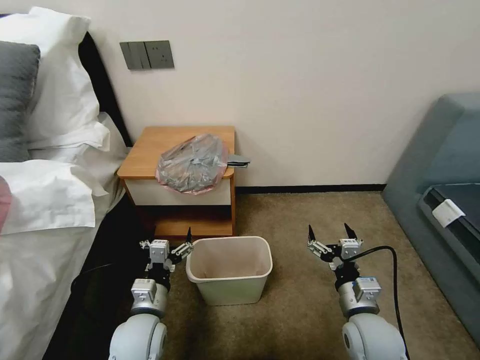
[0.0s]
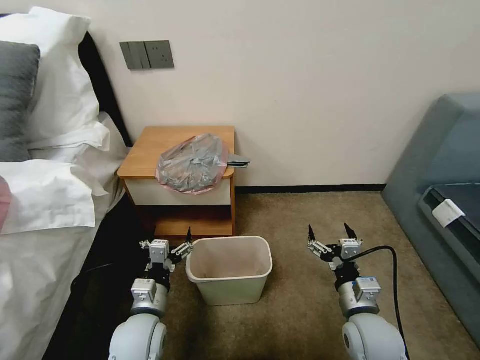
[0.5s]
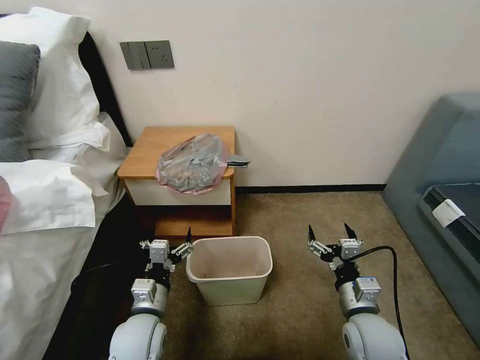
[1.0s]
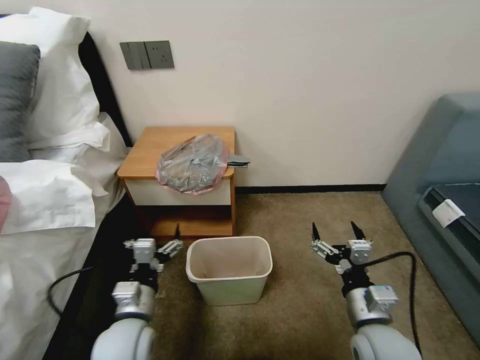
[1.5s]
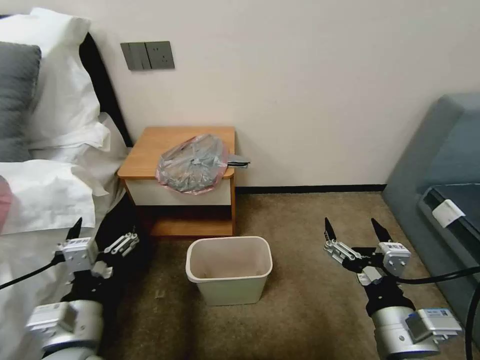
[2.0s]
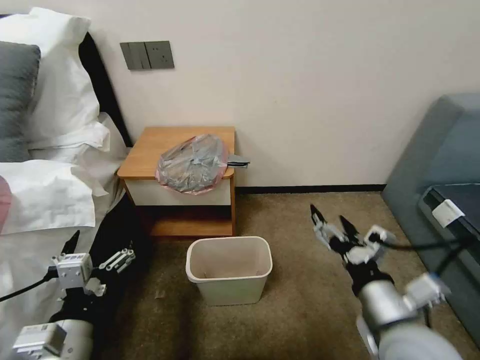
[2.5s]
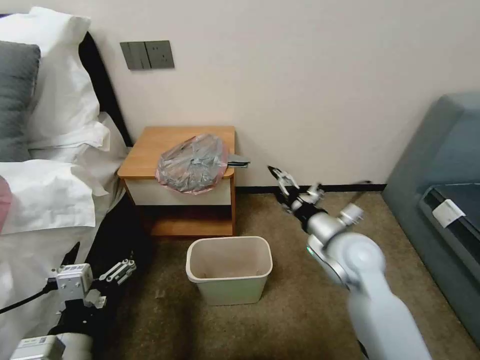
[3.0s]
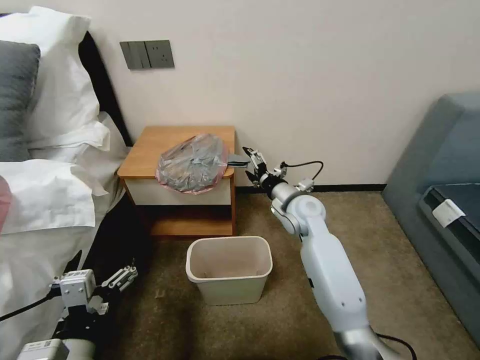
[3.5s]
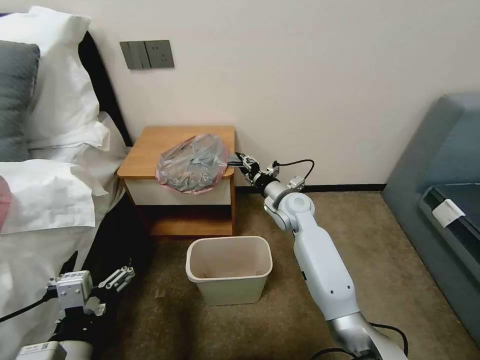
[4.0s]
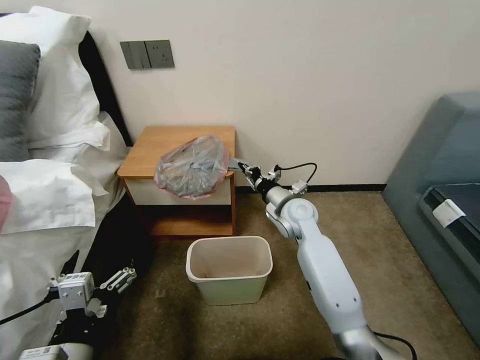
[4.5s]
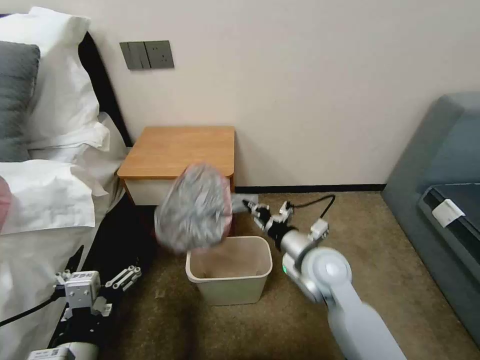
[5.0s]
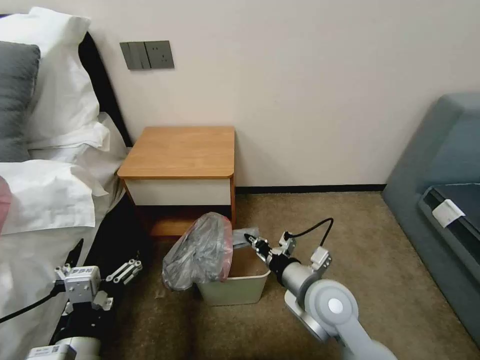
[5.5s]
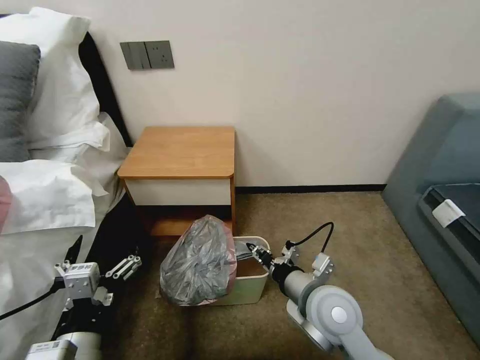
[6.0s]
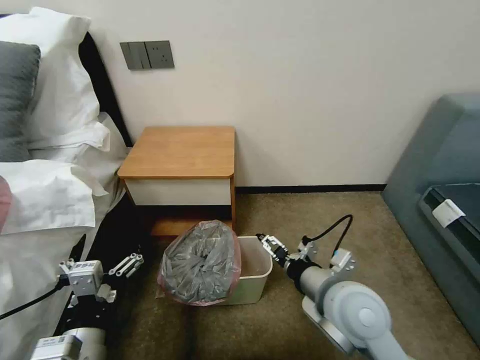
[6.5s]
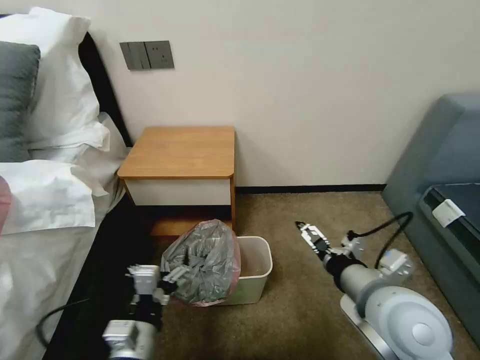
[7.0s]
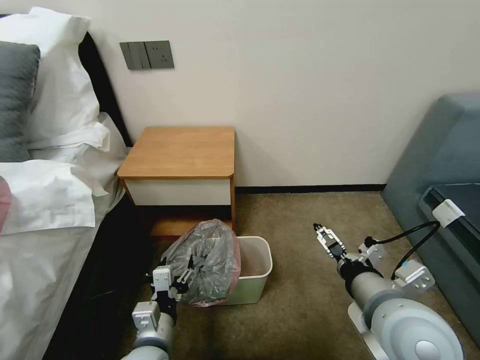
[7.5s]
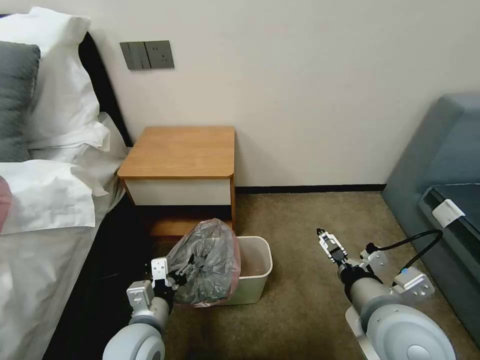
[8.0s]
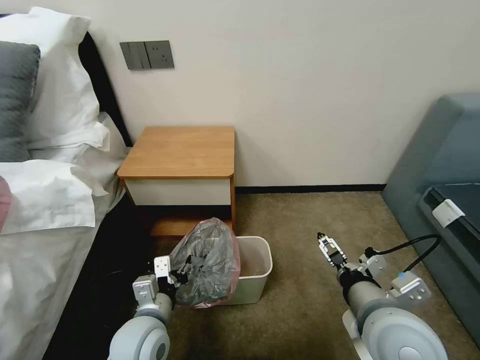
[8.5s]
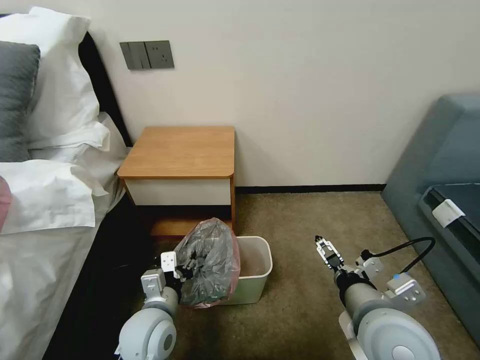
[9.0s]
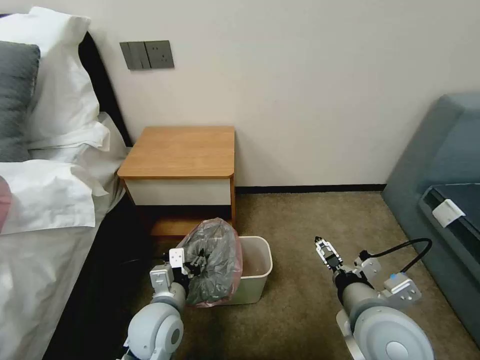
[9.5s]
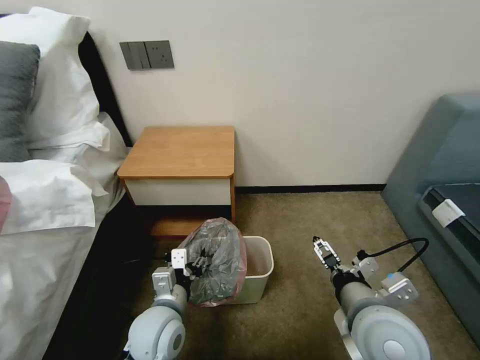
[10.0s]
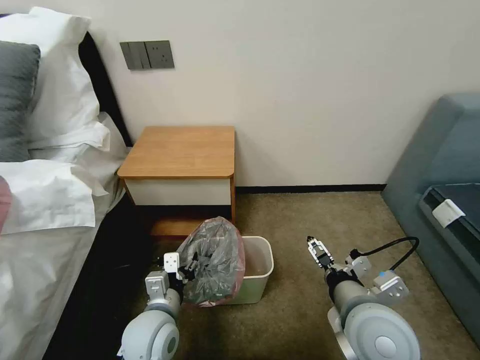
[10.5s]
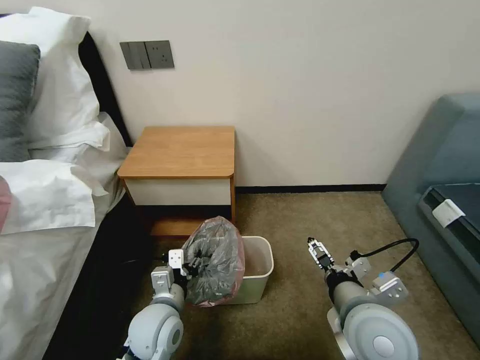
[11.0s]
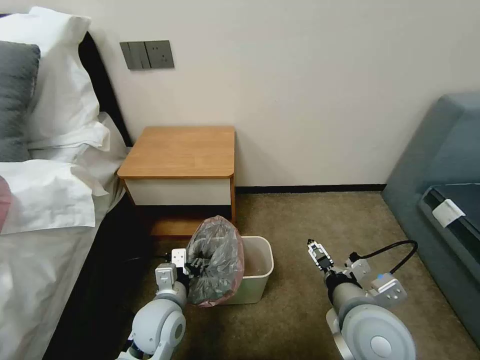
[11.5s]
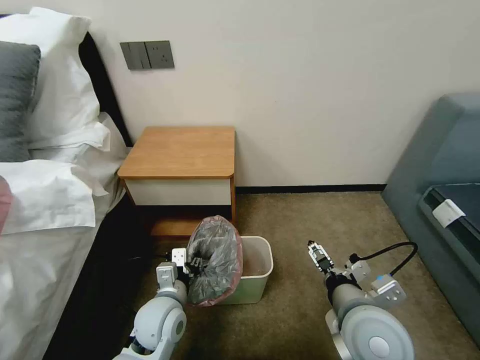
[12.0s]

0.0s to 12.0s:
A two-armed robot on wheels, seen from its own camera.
Task of the whole recording: Pick up the garbage bag from the table and place it over the trash can.
2.0s to 4.0s: The right gripper shifts roughly 35 cm forward, and closes its fingers. Meanwhile the left gripper travels backward by roughly 5 cm.
4.0s to 6.0s: The right gripper heads backward, covering some 25 cm.
6.0s to 8.0s: The left gripper travels forward and downward by roughly 10 cm; the right gripper moves upward, to the right and backward, roughly 10 cm, and opens.
8.0s to 10.0s: There are only small adjustments of the grippers.
10.0s to 12.0s: The grippers stay close to where they were, moving slightly.

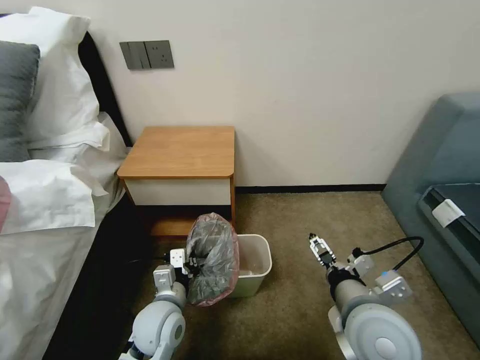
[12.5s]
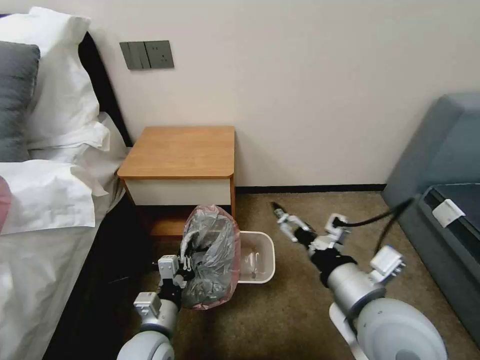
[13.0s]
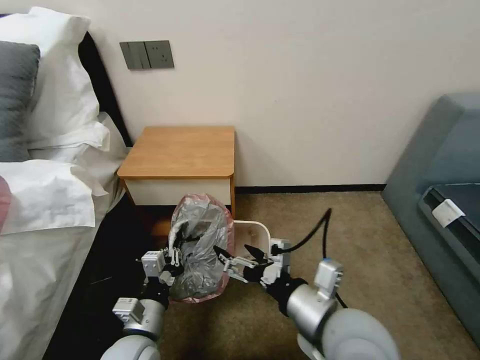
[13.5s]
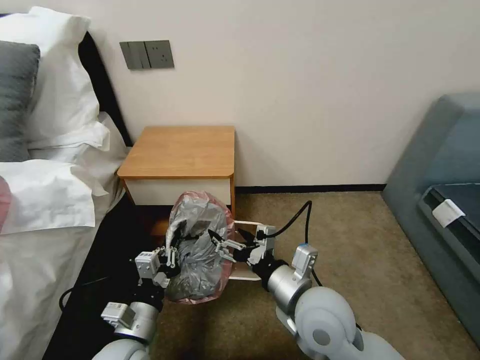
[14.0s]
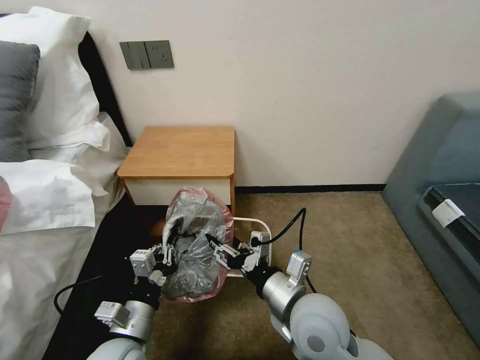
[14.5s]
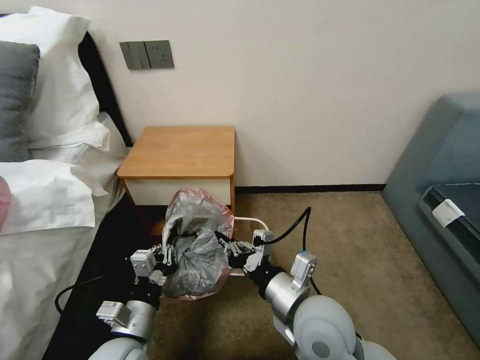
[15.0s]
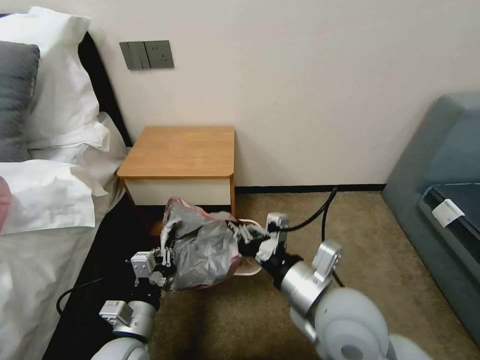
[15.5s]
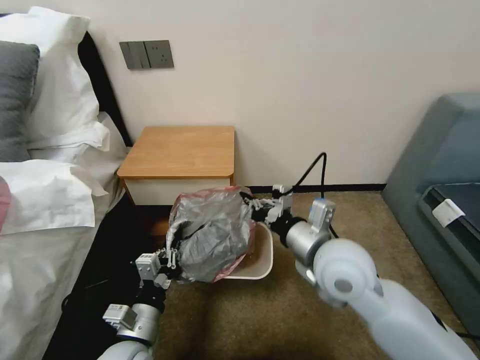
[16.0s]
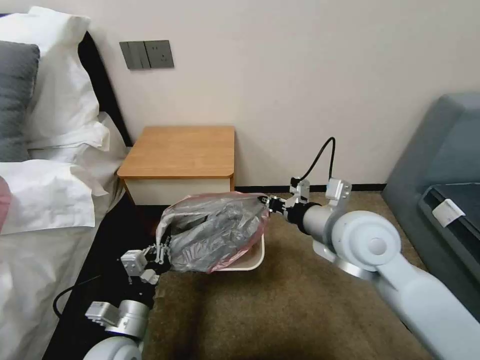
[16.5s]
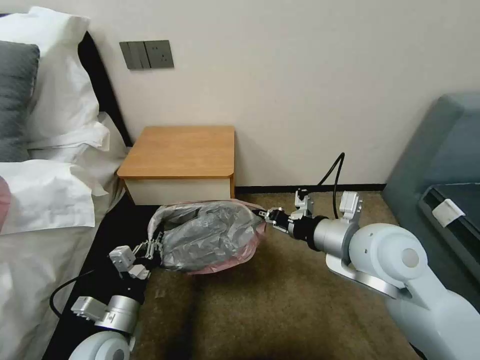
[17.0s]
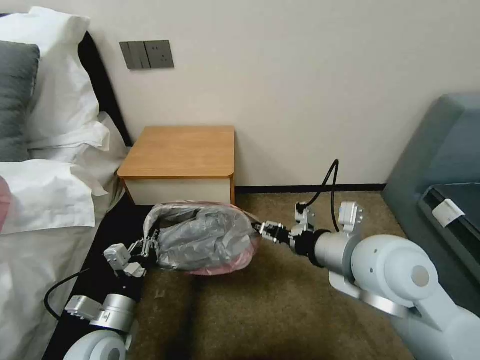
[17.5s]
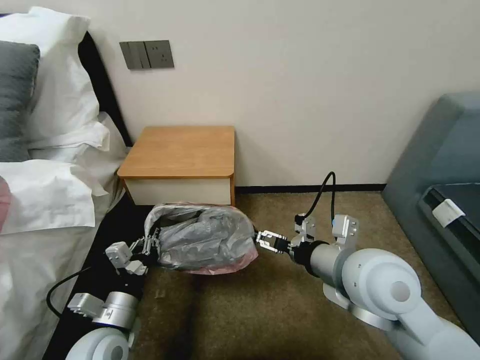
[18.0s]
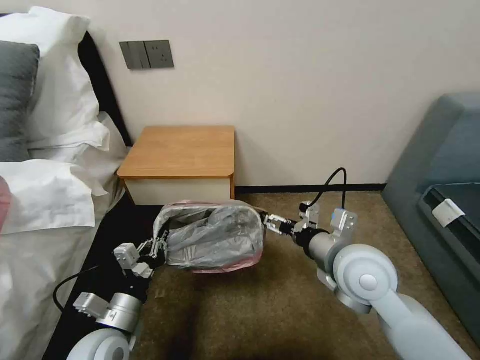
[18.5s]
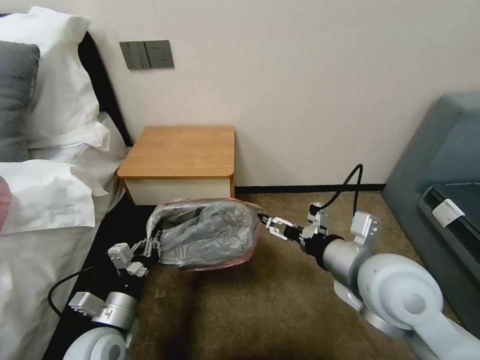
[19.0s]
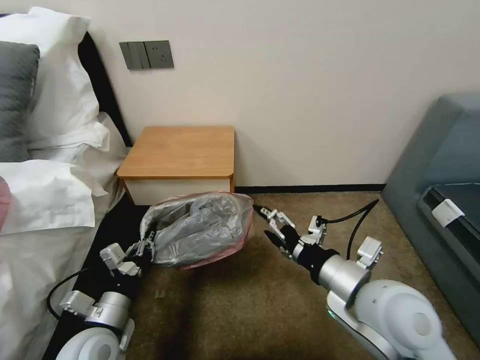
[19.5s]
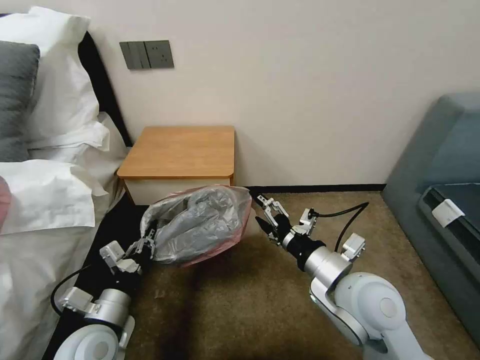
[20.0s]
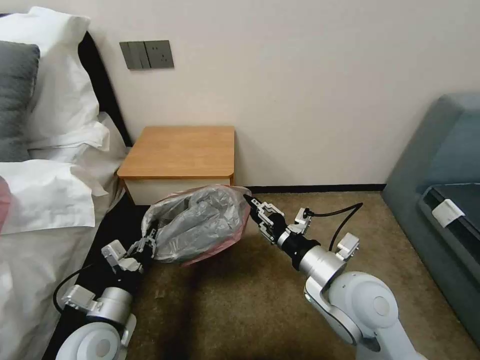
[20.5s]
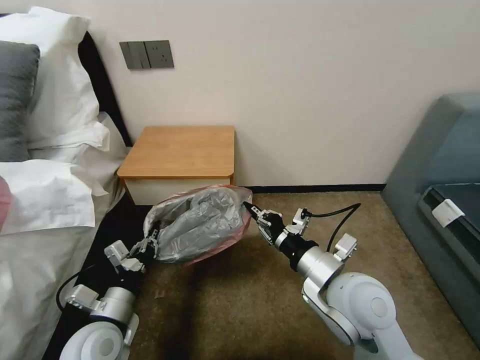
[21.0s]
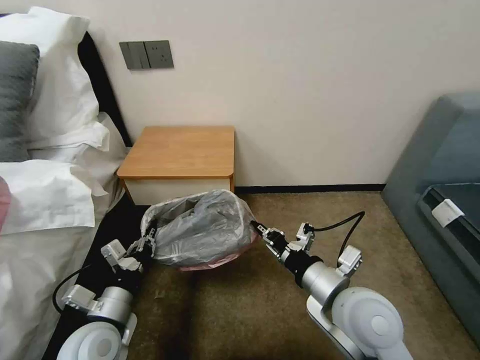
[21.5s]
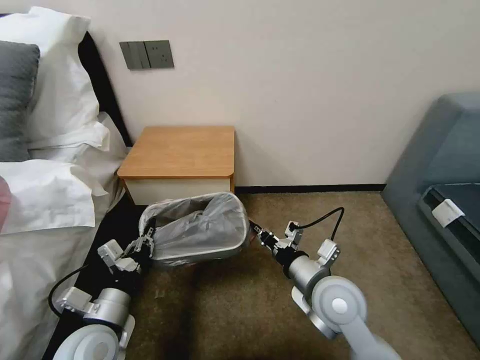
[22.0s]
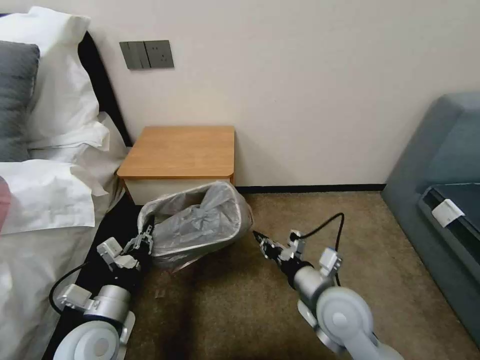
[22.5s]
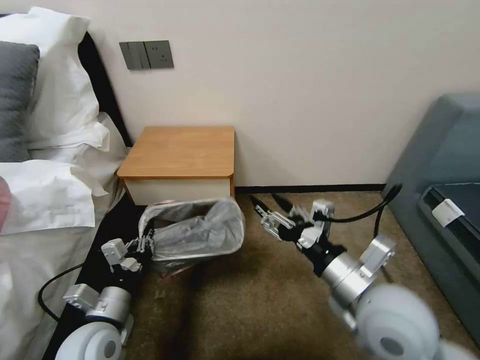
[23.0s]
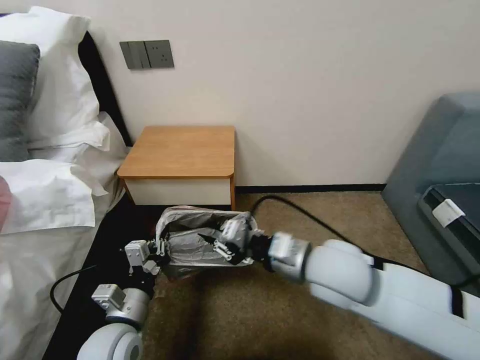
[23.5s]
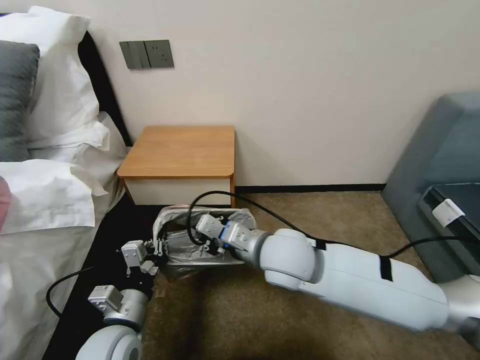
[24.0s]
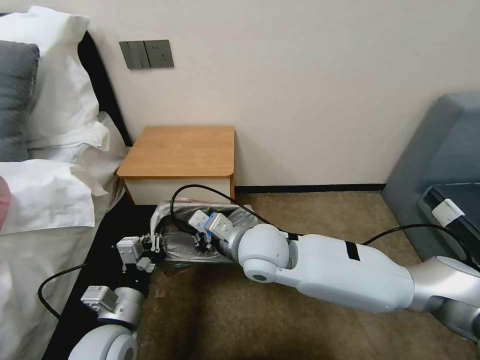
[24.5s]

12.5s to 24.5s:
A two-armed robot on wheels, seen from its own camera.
Task of the whole recording: Pick up the garbage bag from the table and place it over the trash can.
12.5s to 14.5s: The right gripper shifts roughly 10 cm to the left, and closes. Meanwhile the left gripper shifts roughly 10 cm backward and to the left.
14.5s to 16.5s: The right gripper travels upward, forward and to the right by roughly 15 cm, and closes up.
16.5s to 18.5s: The right gripper heads downward, covering some 5 cm, and opens its fingers.
18.5s to 20.5s: The right gripper closes up.
20.5s to 22.5s: The right gripper heads downward, covering approximately 10 cm.
22.5s to 24.5s: The right gripper heads to the left, upward and forward, covering approximately 20 cm, and opens and closes again.

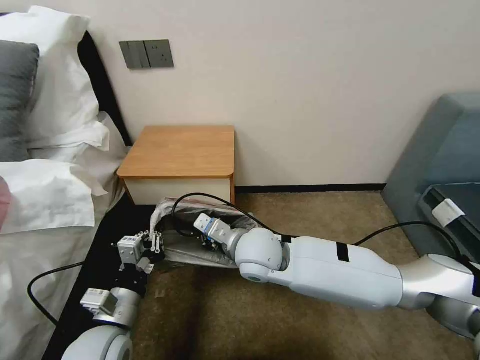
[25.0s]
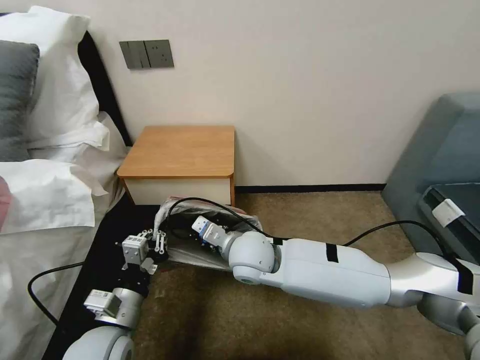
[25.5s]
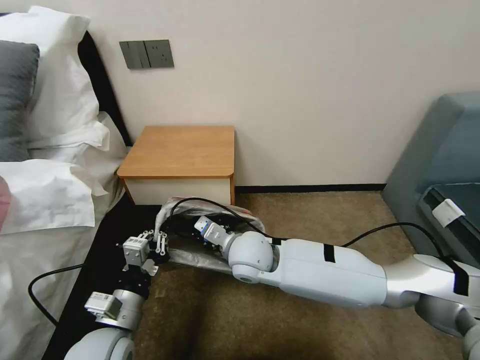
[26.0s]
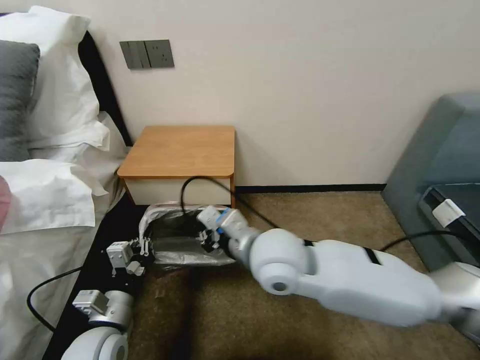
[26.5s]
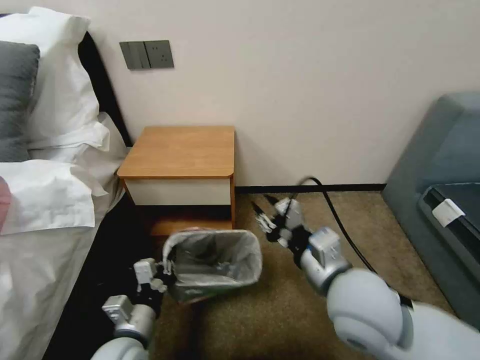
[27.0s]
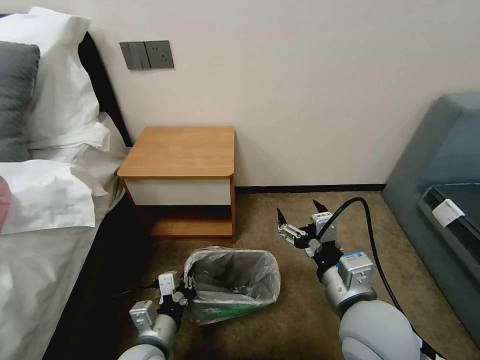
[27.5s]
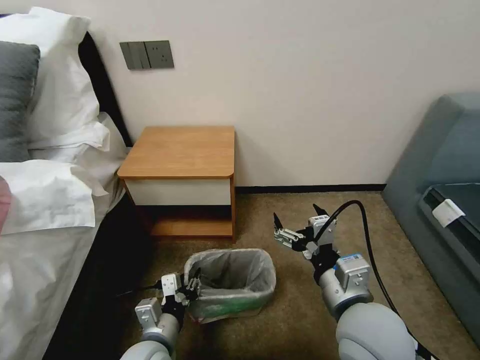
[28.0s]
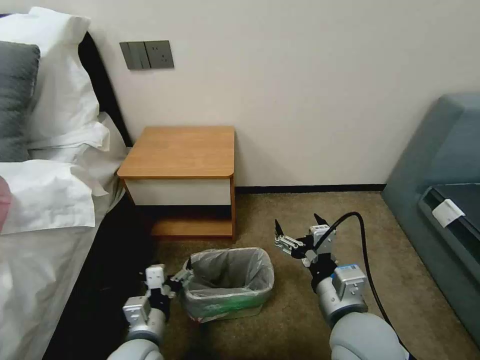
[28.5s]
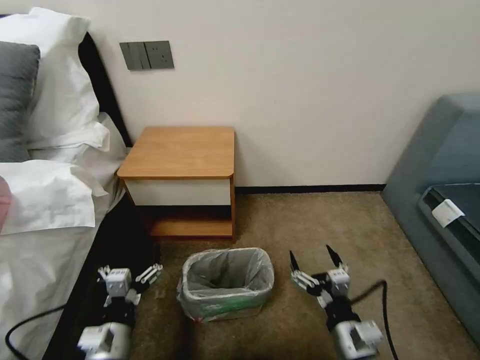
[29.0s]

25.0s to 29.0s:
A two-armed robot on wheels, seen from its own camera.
Task of the whole recording: Pick up the garbage bag from the table and place it over the trash can.
25.0s to 27.0s: The right gripper moves to the right, backward and upward, about 20 cm; the left gripper shifts by roughly 5 cm.
27.0s to 29.0s: The right gripper shifts approximately 20 cm downward and backward, and opens. Meanwhile the left gripper opens.
